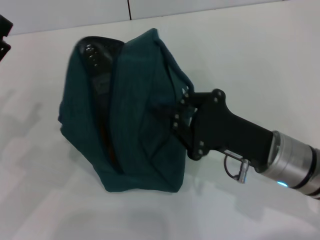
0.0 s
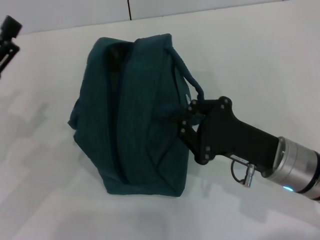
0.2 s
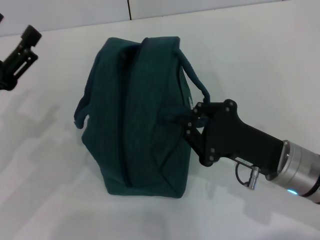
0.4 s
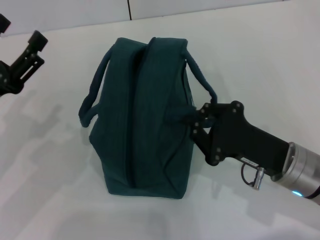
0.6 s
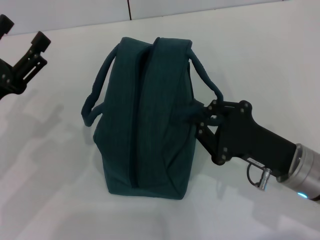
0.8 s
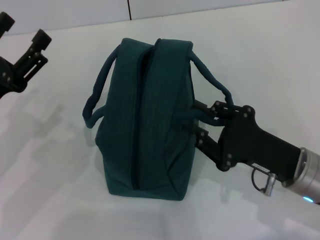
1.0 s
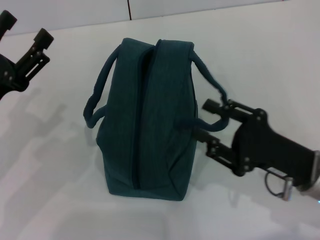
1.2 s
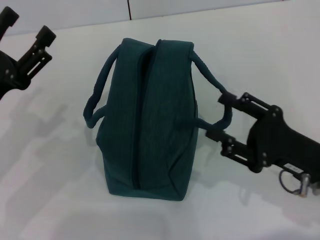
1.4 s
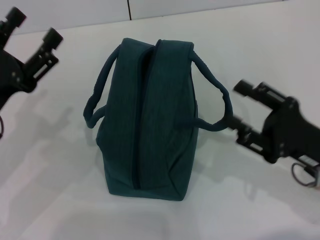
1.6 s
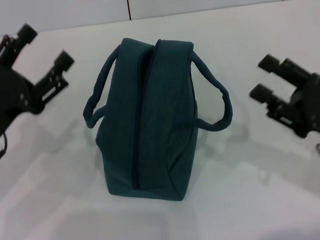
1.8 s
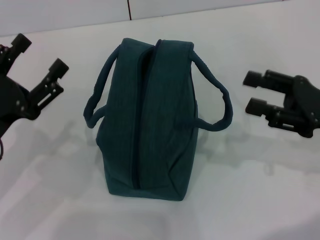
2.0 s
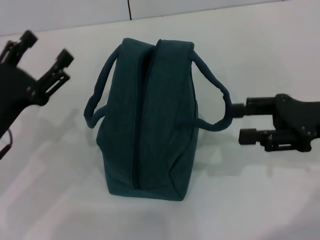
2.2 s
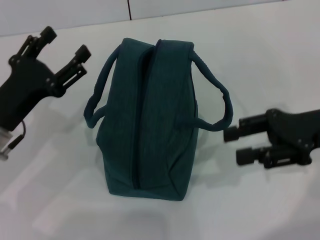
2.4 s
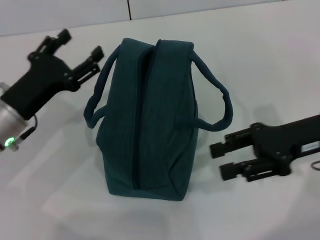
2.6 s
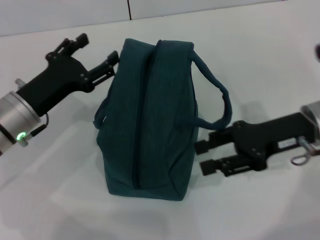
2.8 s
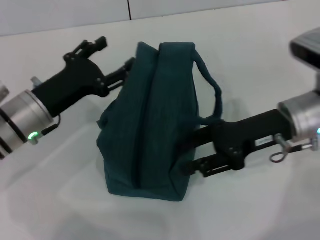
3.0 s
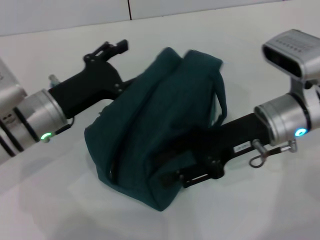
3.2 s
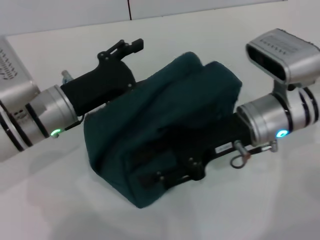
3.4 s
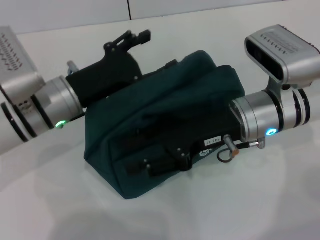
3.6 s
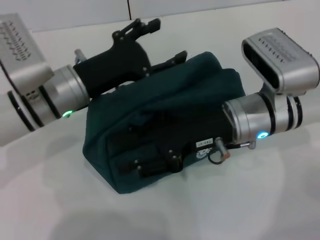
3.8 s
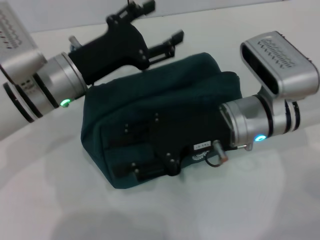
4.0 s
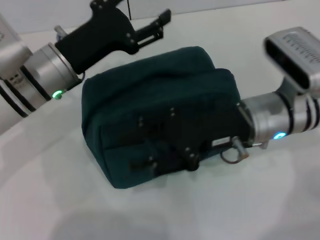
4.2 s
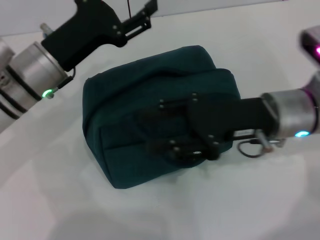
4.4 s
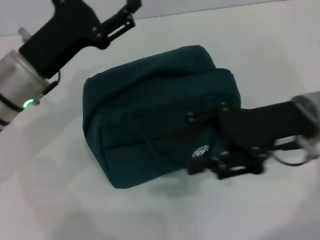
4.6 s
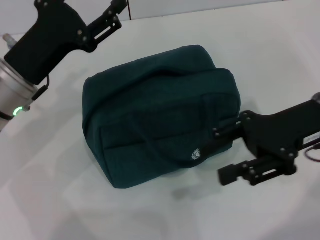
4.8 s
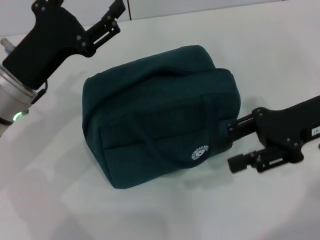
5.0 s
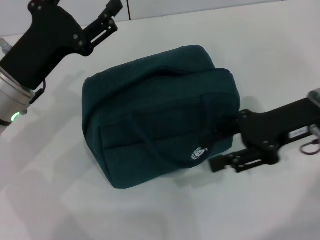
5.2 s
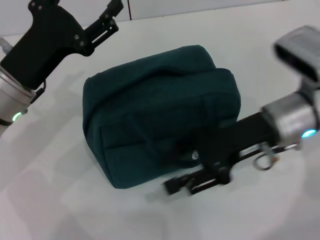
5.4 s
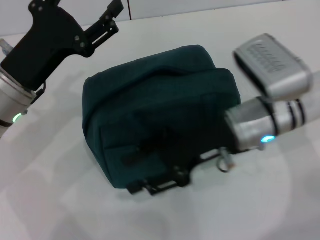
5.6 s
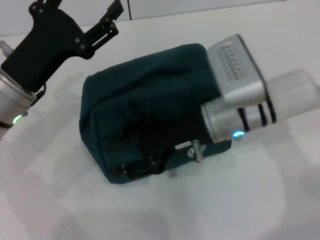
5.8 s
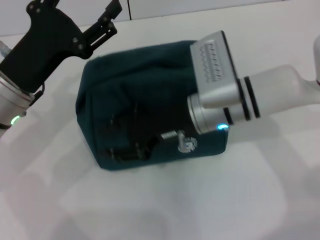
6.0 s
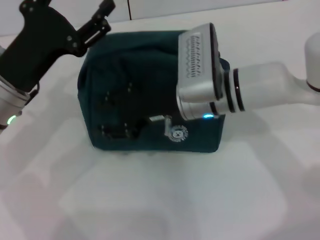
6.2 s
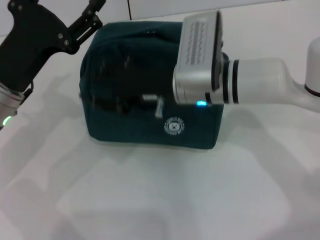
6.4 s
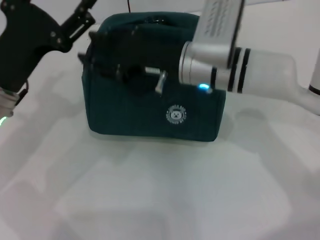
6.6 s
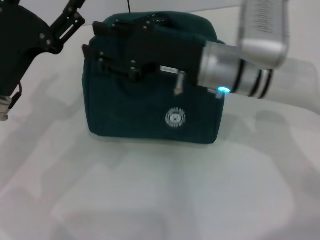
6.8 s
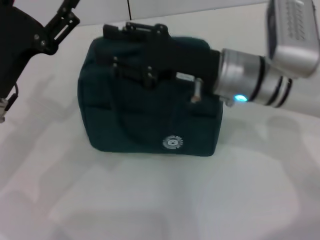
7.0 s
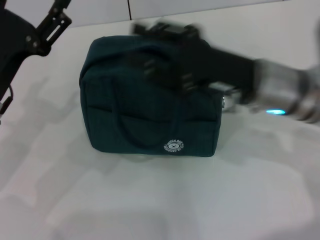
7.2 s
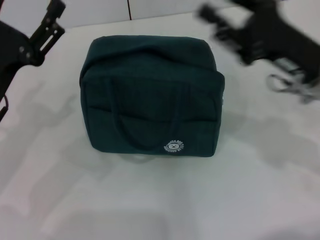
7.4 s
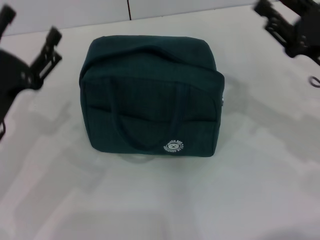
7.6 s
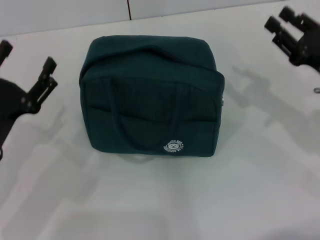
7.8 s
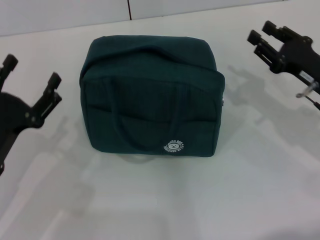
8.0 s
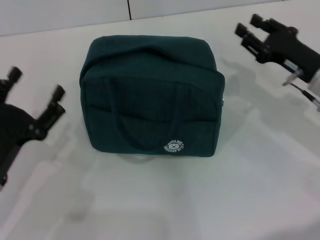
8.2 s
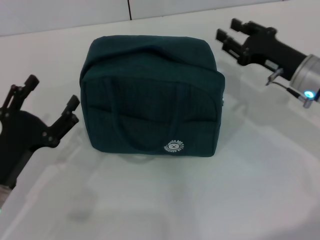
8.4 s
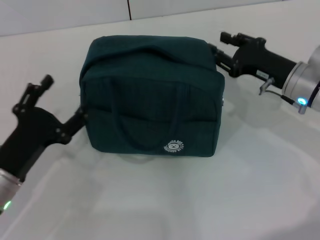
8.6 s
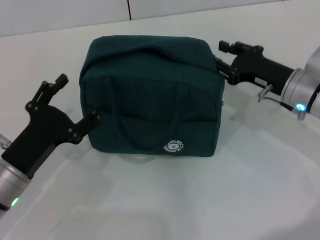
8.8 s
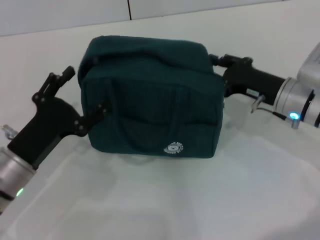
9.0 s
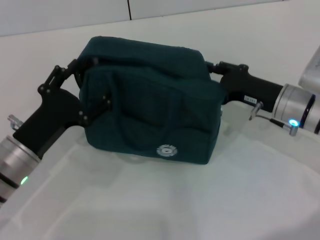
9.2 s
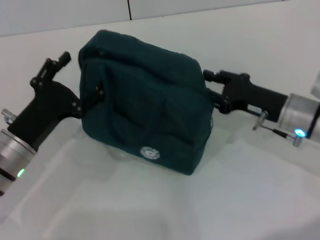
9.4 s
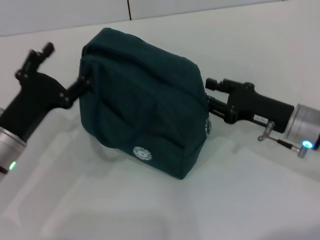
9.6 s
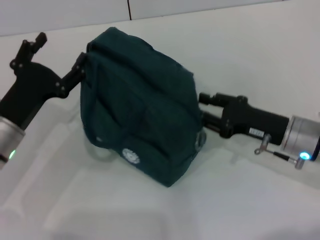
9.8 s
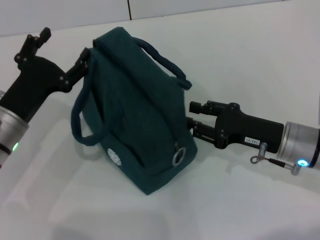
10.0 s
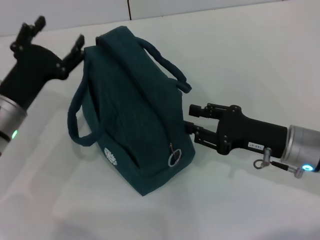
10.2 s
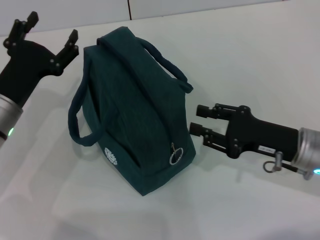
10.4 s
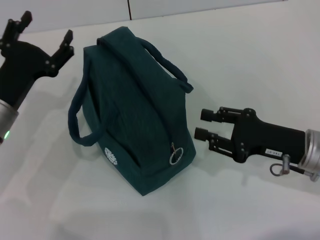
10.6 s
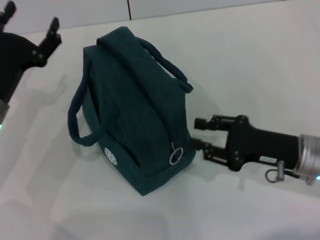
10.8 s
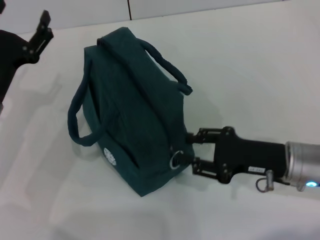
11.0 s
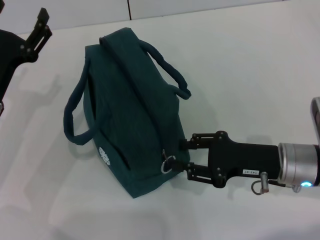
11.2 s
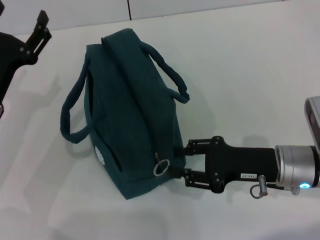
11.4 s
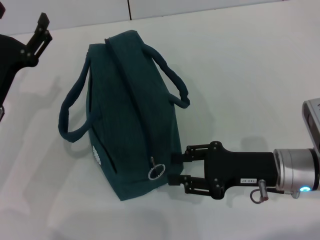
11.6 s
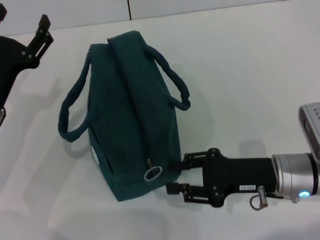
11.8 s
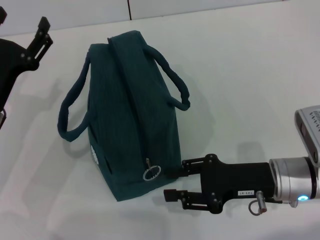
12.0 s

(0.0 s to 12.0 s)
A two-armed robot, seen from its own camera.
0.0 s - 1.6 s: The right gripper heads to the right, covering roughly 10 cm, and opens up.
1.6 s - 3.0 s: The left gripper moves to the right and forward, roughly 10 cm, while the right gripper goes roughly 10 cm forward.
3.0 s - 4.4 s: The left gripper ends up approximately 5 cm from where it was.
4.4 s - 6.0 s: The right gripper shifts some 10 cm to the left, while the left gripper shifts by roughly 5 cm.
6.0 s - 7.6 s: The left gripper shifts by some 5 cm, while the right gripper goes some 20 cm to the right.
7.6 s - 9.0 s: The left gripper moves roughly 5 cm, while the right gripper travels downward and forward by roughly 10 cm.
9.0 s - 10.4 s: The left gripper shifts about 5 cm forward. Meanwhile the right gripper moves backward, approximately 10 cm.

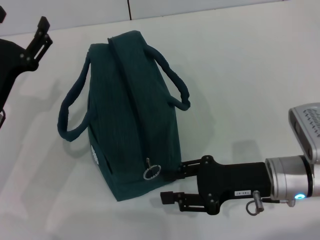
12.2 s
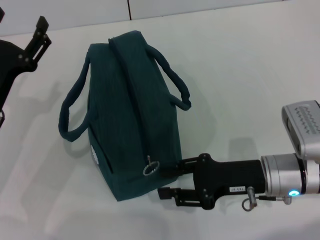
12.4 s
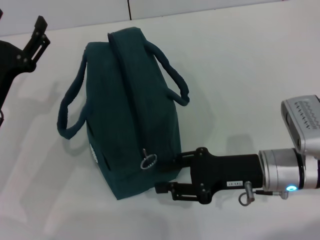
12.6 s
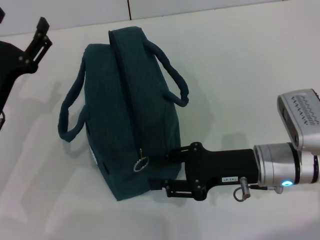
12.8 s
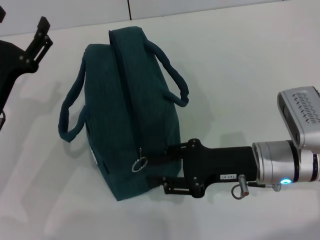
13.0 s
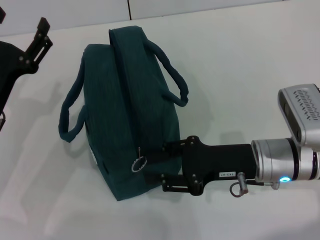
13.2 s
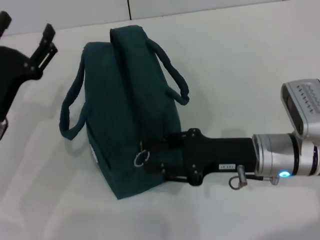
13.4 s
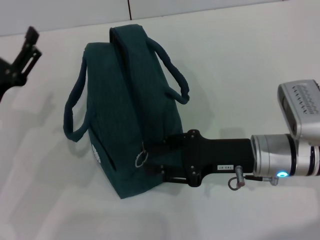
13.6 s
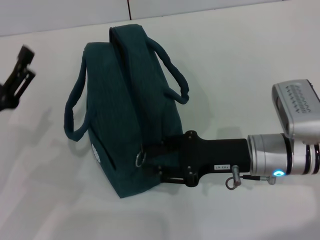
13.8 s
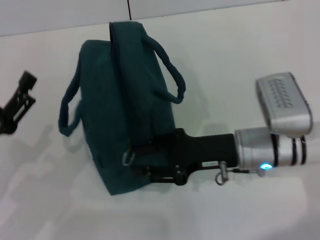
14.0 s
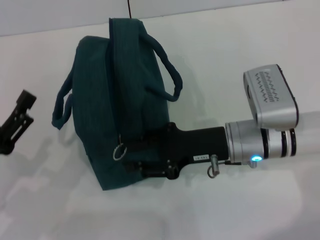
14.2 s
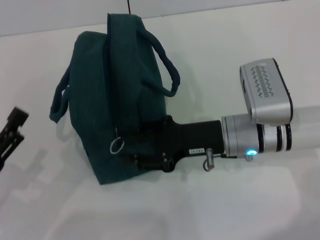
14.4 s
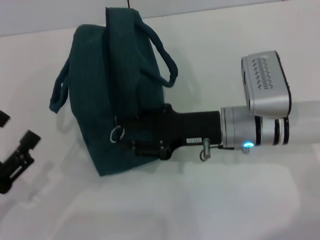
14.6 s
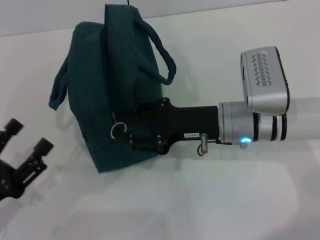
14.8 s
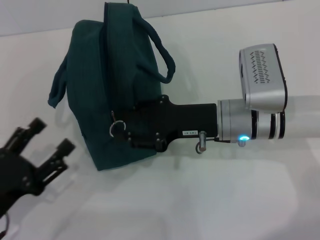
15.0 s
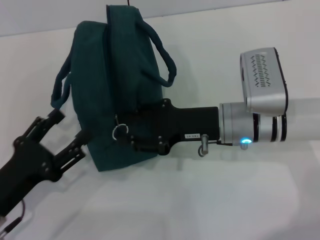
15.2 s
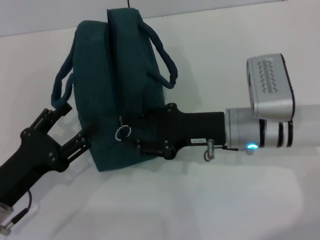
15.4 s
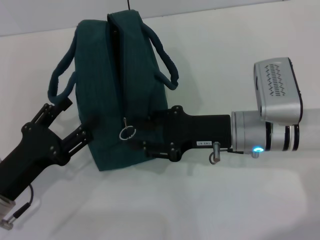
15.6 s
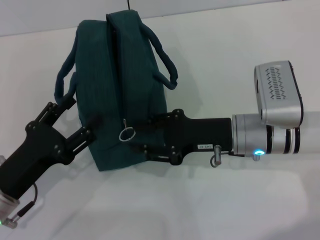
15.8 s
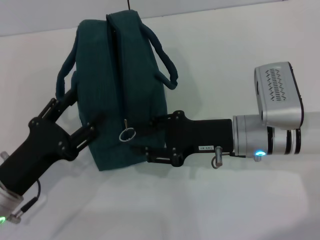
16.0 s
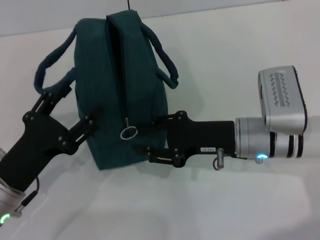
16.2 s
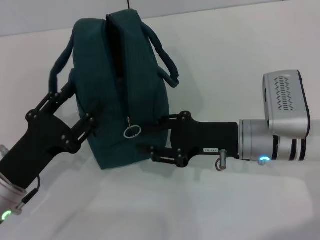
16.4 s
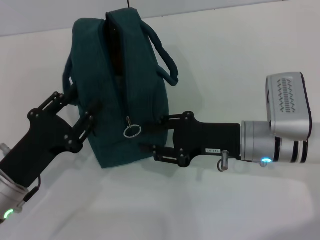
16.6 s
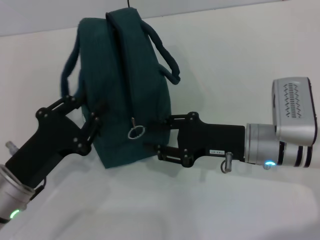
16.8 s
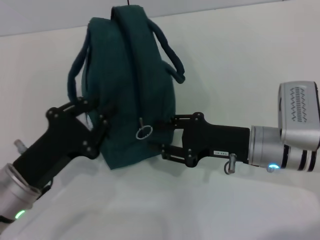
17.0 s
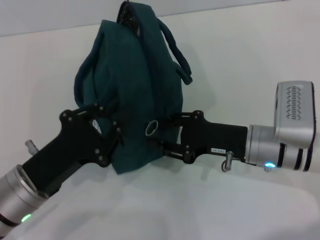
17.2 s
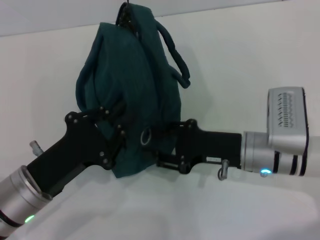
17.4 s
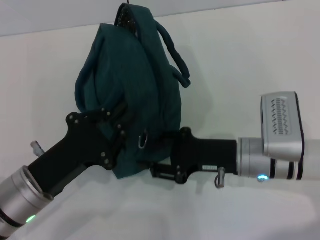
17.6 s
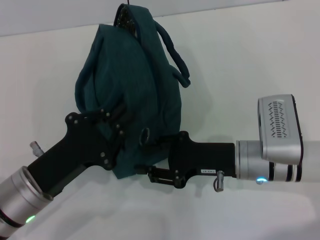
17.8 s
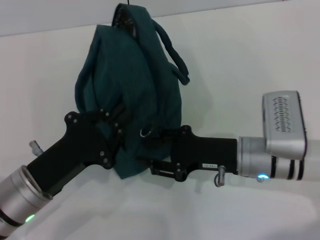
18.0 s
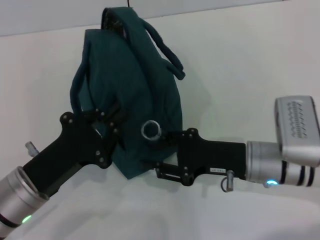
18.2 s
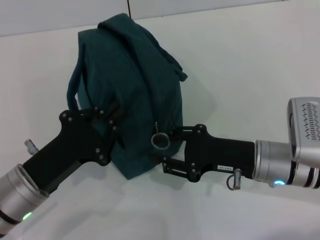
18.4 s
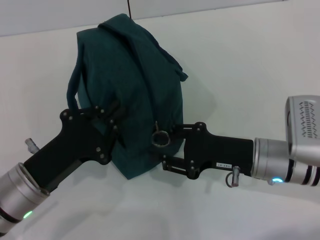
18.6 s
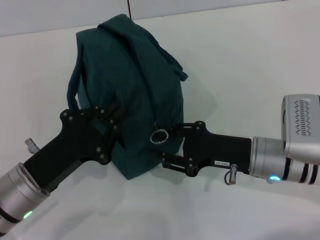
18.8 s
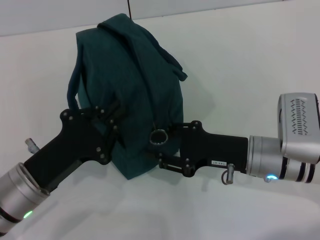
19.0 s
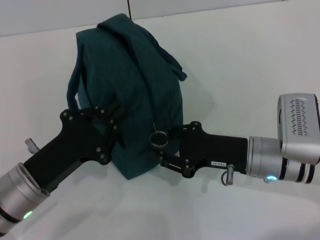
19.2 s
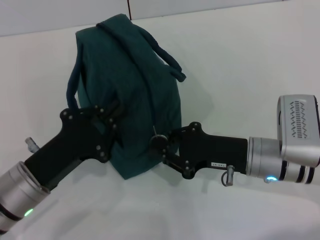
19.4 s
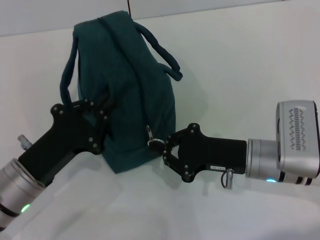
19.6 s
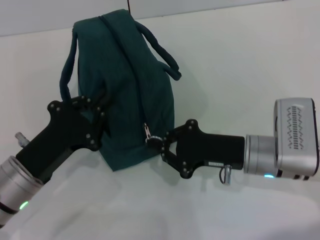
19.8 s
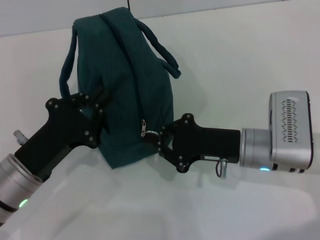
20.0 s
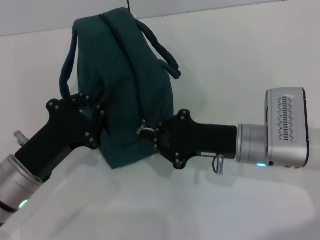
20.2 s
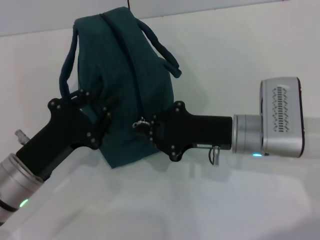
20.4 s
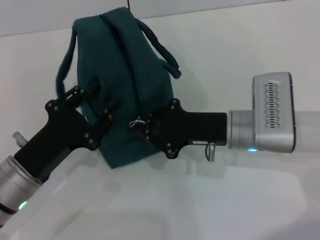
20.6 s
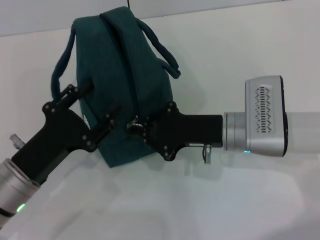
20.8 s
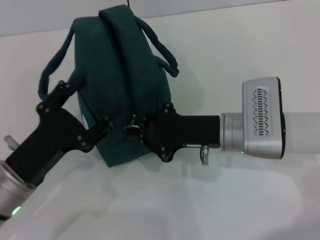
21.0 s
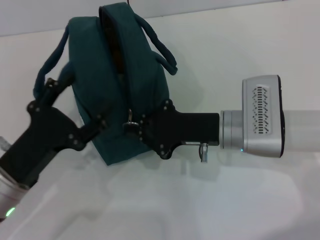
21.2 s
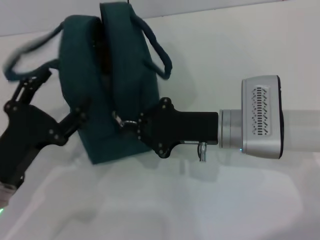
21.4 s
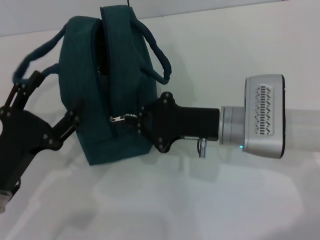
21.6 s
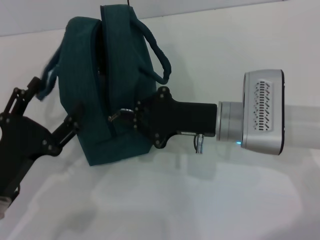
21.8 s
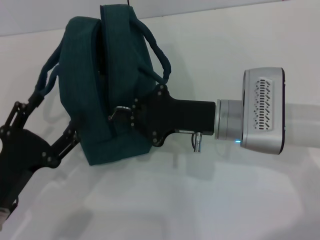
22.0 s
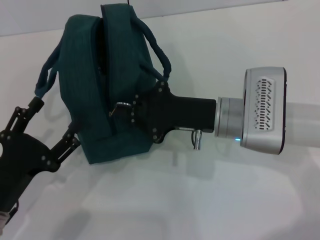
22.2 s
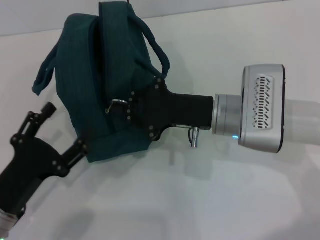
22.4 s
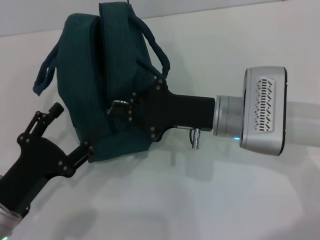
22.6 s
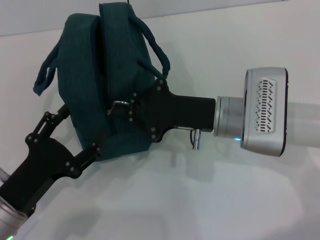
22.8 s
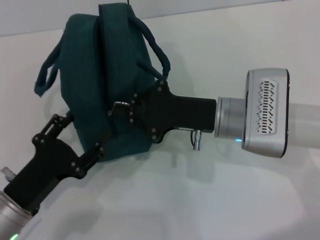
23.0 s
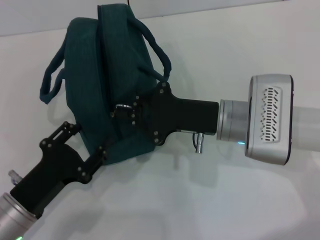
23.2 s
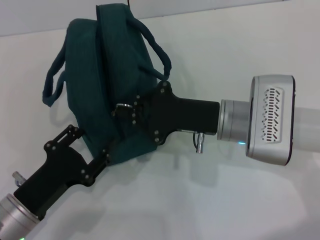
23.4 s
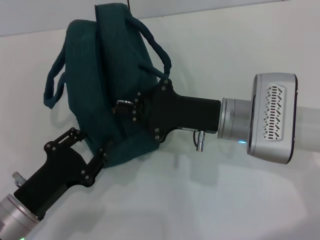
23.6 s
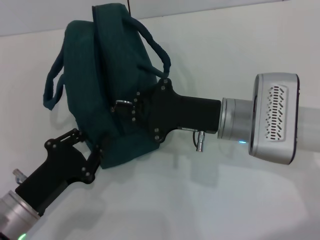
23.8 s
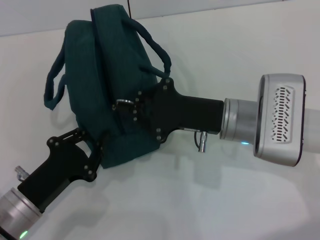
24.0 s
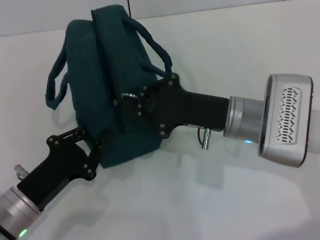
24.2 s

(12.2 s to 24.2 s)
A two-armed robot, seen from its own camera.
12.2 s - 13.8 s: The left gripper goes roughly 5 cm backward.
13.8 s - 15.2 s: The right gripper shifts by approximately 5 cm.
16.6 s - 18.2 s: The left gripper closes.
18.2 s - 19.8 s: The right gripper closes up.
19.8 s - 21.2 s: The left gripper opens. The right gripper shifts by roughly 5 cm.
21.2 s - 22.6 s: The grippers move only a little.
22.6 s - 24.2 s: The left gripper closes up.
